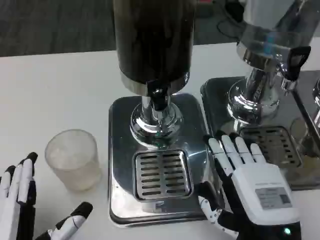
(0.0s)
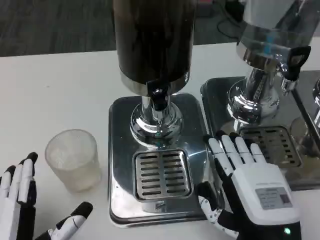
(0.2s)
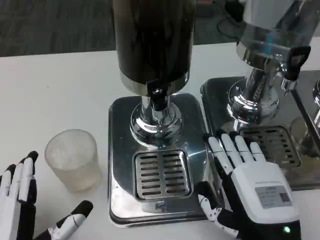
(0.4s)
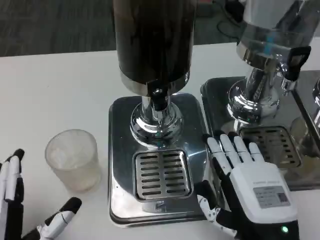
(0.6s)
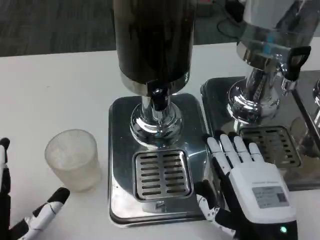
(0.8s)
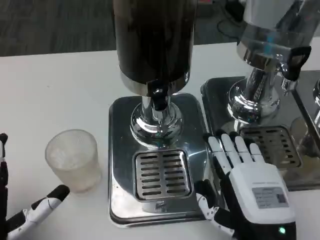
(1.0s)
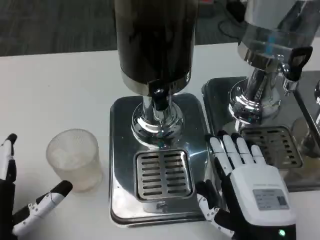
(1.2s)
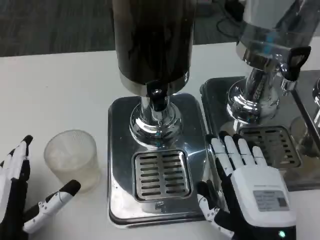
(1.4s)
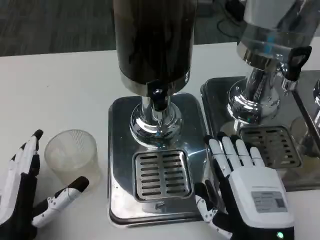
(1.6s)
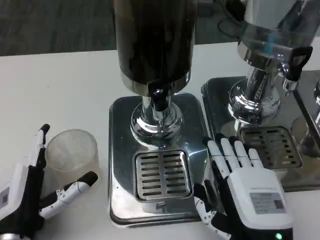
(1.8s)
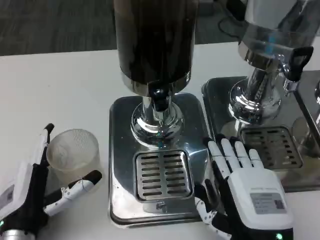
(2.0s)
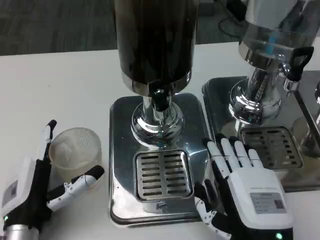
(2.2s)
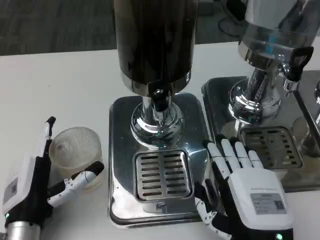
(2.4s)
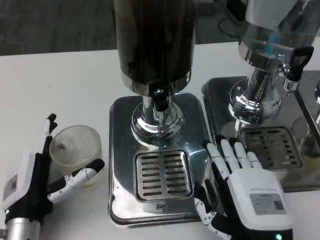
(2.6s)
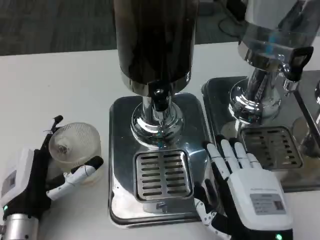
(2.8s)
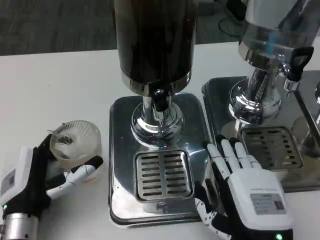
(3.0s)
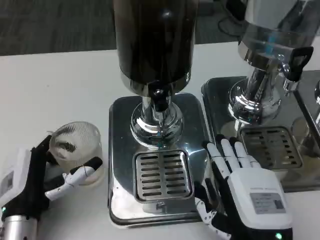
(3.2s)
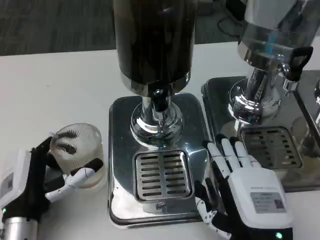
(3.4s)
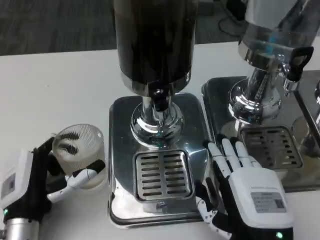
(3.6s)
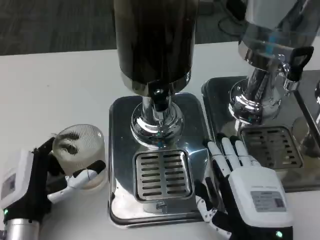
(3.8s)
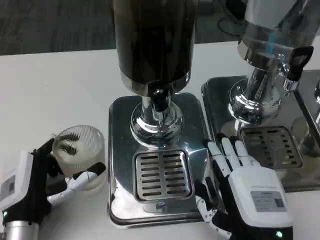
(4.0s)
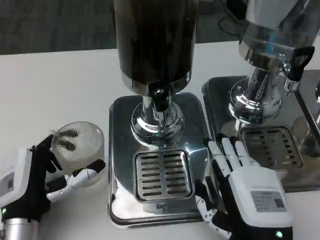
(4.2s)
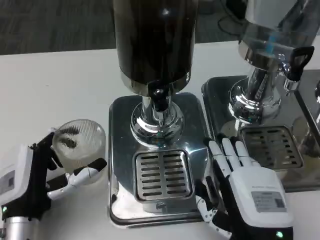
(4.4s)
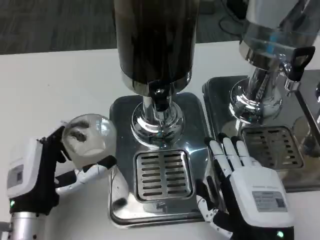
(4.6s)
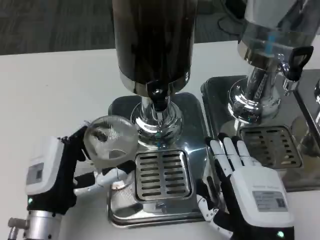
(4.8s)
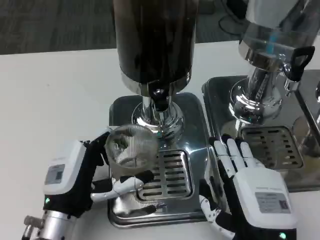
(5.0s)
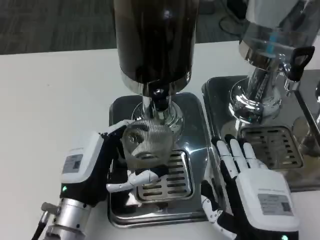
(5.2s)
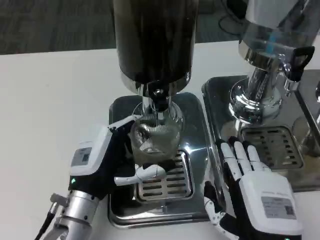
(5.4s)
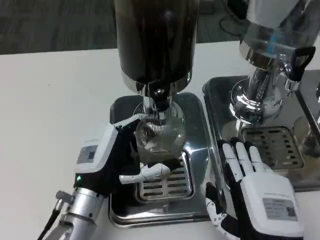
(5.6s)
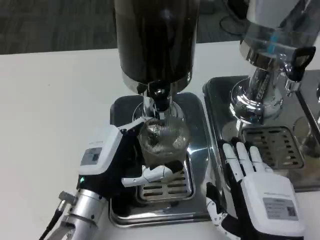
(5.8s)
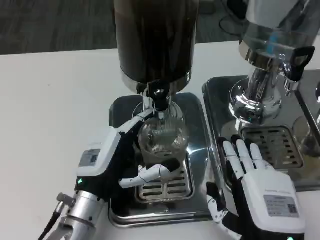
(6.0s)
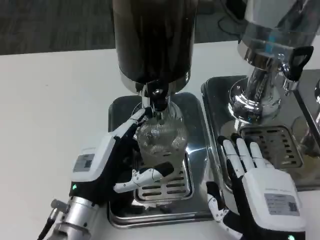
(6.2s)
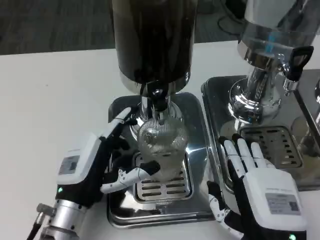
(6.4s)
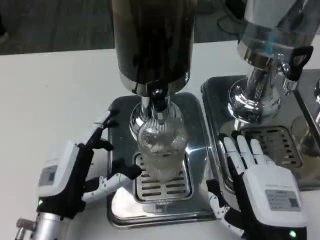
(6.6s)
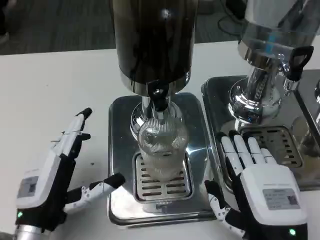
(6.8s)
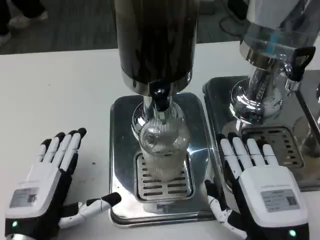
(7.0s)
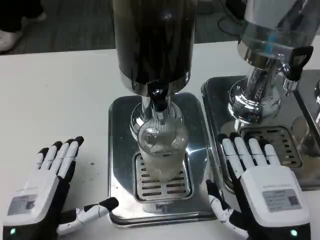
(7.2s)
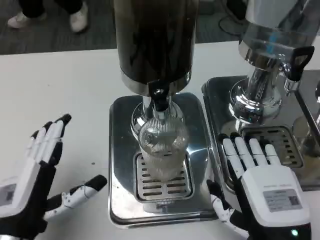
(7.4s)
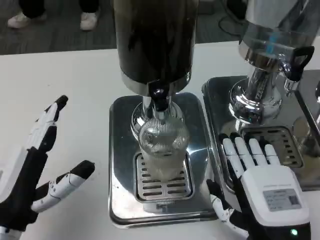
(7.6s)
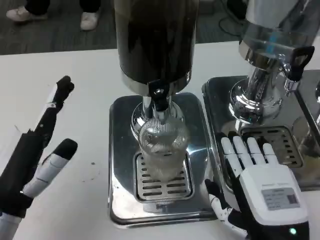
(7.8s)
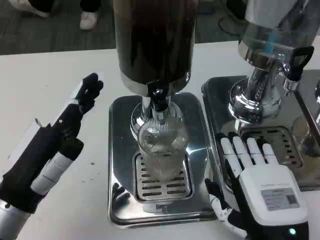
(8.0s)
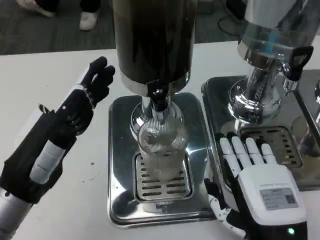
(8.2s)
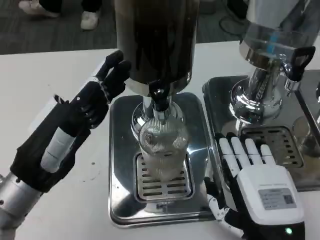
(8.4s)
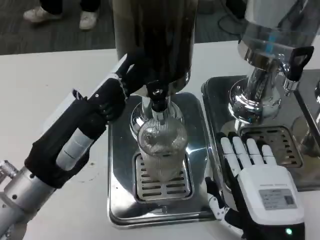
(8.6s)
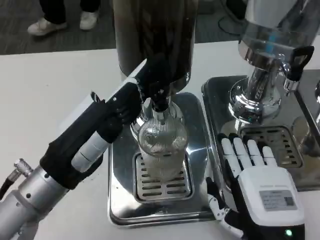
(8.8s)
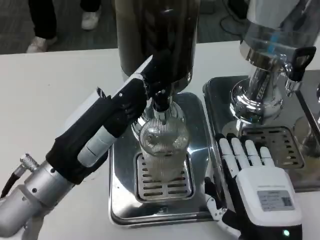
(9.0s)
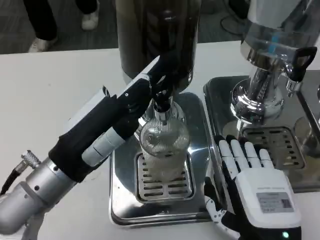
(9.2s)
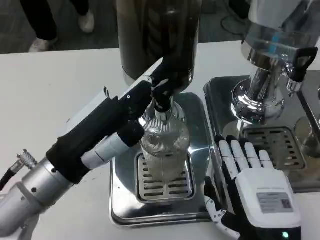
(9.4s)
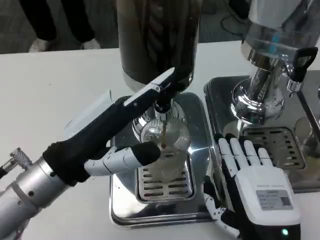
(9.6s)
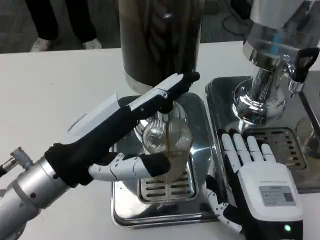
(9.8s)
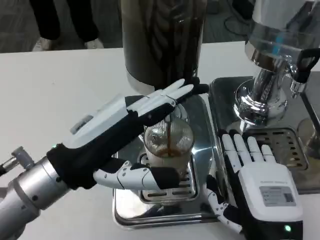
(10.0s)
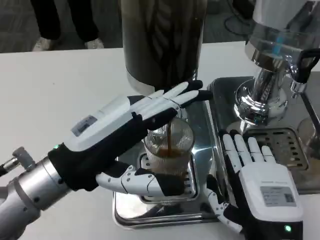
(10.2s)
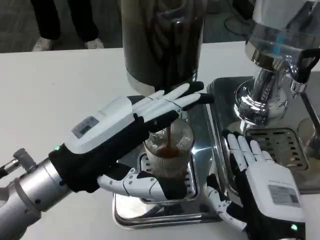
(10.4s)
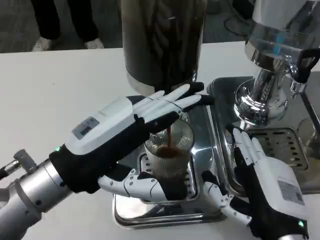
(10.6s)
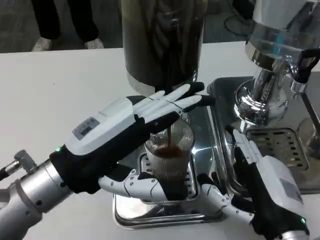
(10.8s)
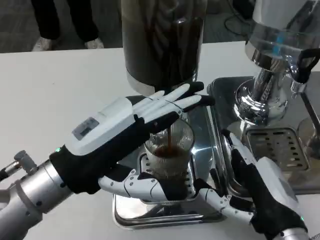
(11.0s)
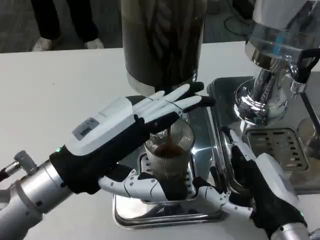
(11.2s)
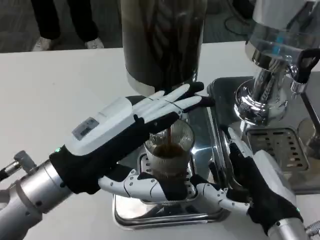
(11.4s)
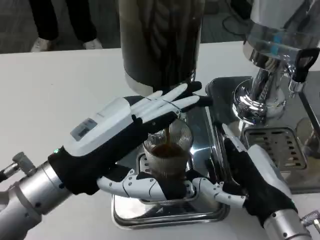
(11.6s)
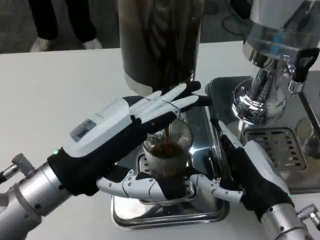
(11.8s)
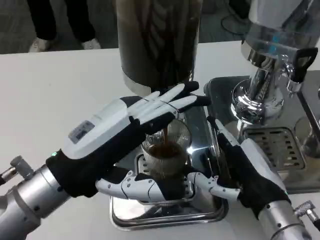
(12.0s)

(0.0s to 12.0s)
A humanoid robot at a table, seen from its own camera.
Task of the whole recording: Grasp the cup under the faucet to collect the drink, then remove the cup.
0.0s - 1.6s: The left hand travels forward by about 5 cm.
1.6s - 4.4s: The hands move only a little.
4.4s - 6.0s: The left hand is displaced to the right by about 5 cm.
6.0s - 7.6s: The left hand goes roughly 10 cm to the left and backward.
7.6s - 9.0s: The left hand is displaced forward and upward by roughly 10 cm.
10.4s - 12.0s: The right hand moves forward, some 5 cm.

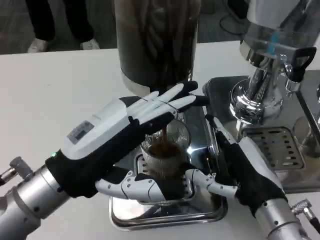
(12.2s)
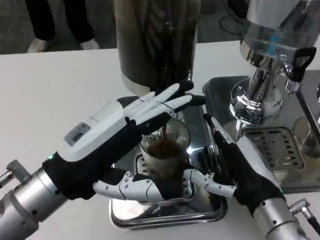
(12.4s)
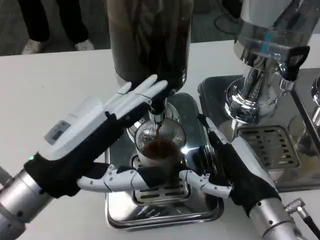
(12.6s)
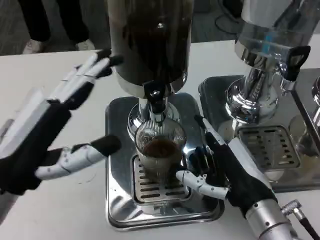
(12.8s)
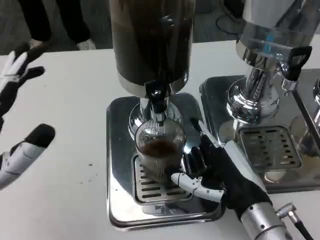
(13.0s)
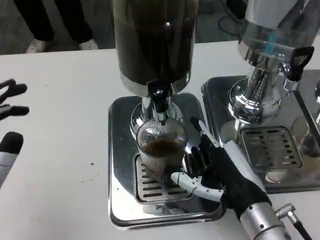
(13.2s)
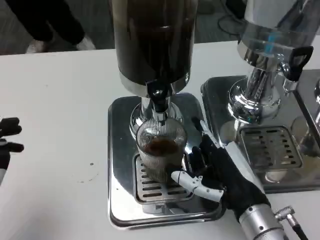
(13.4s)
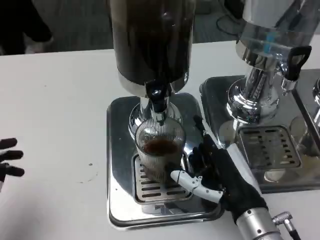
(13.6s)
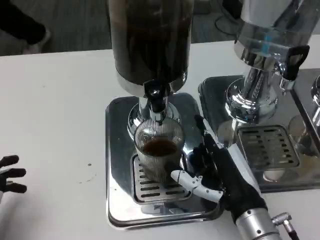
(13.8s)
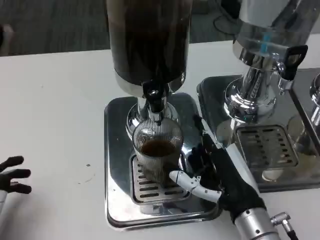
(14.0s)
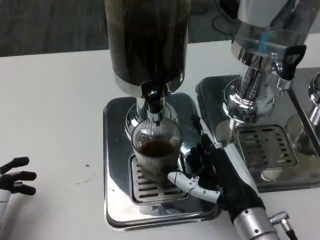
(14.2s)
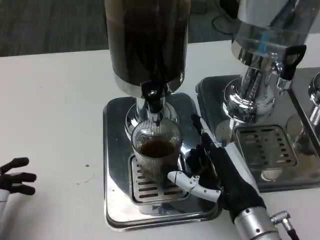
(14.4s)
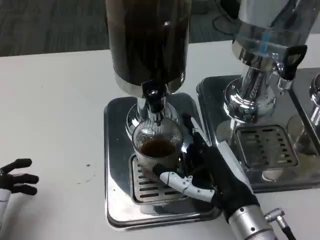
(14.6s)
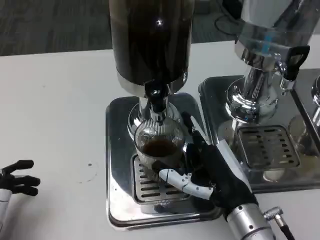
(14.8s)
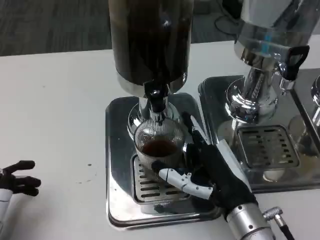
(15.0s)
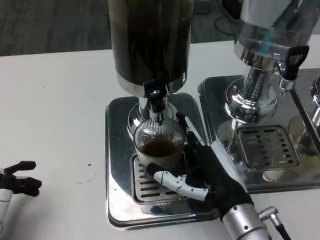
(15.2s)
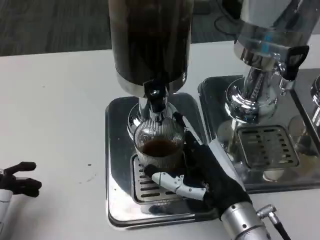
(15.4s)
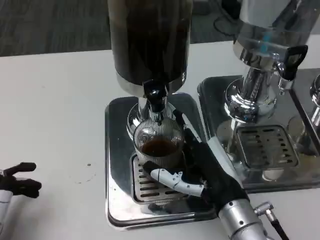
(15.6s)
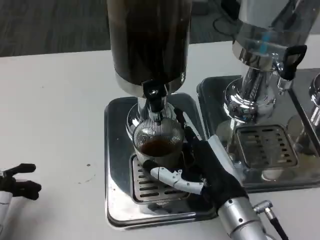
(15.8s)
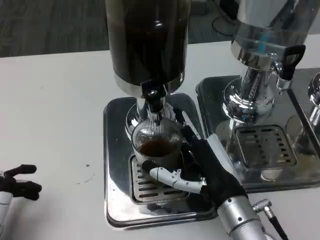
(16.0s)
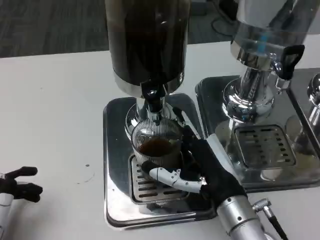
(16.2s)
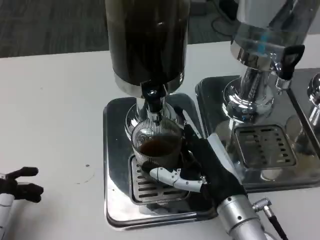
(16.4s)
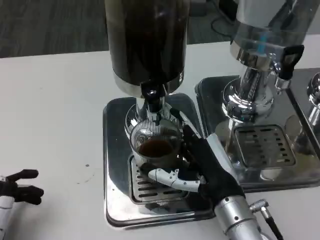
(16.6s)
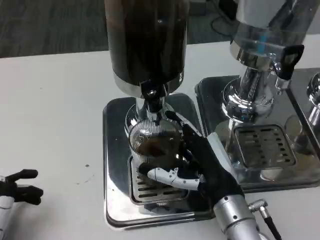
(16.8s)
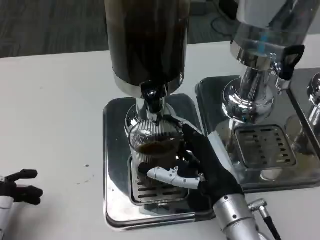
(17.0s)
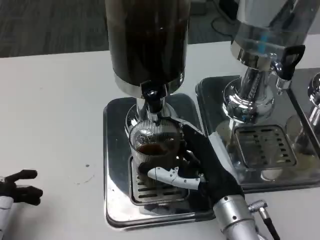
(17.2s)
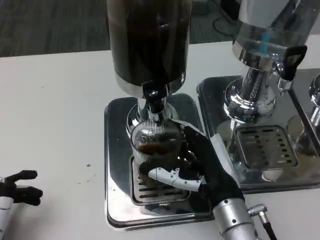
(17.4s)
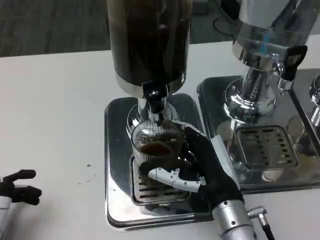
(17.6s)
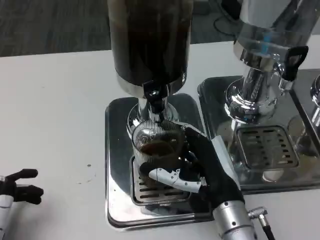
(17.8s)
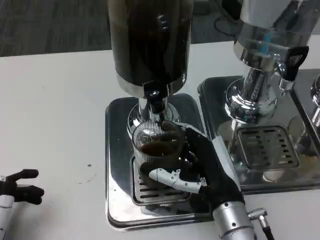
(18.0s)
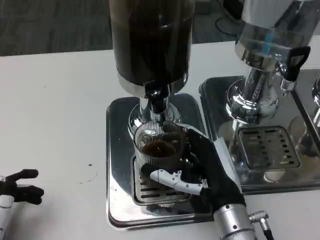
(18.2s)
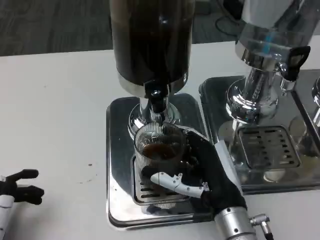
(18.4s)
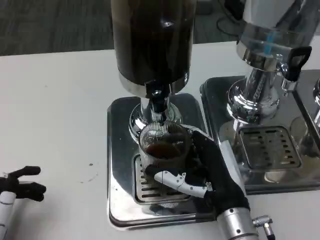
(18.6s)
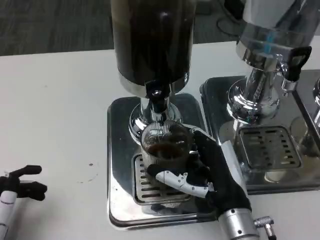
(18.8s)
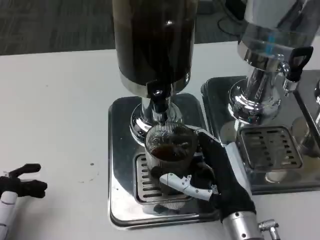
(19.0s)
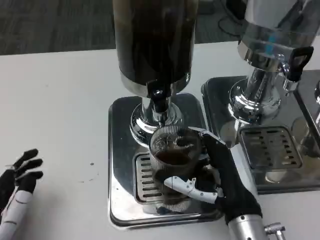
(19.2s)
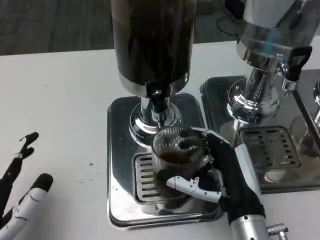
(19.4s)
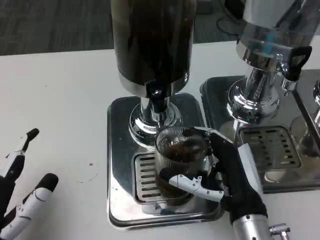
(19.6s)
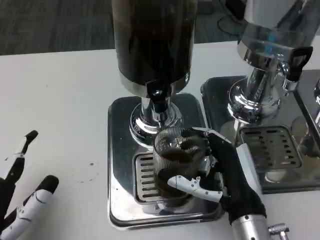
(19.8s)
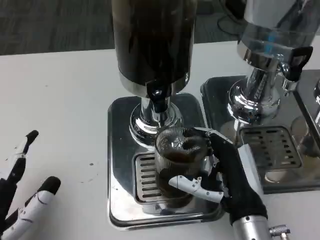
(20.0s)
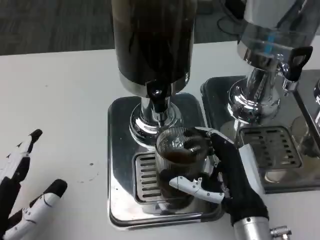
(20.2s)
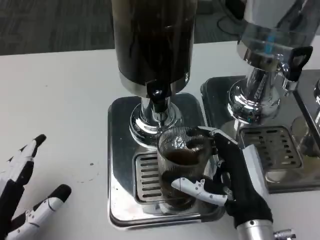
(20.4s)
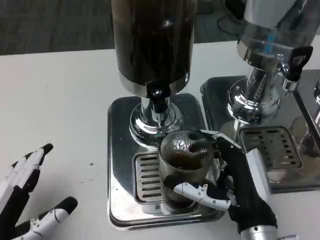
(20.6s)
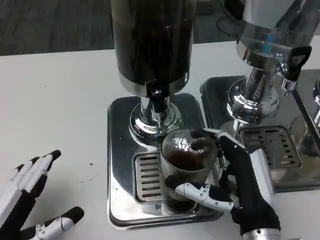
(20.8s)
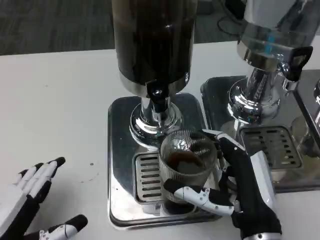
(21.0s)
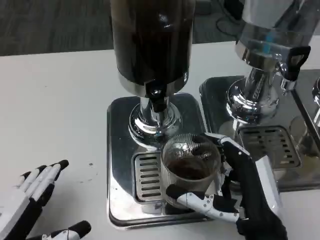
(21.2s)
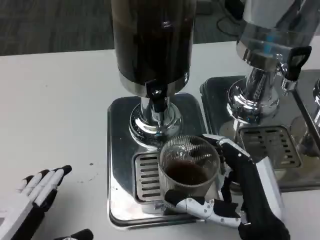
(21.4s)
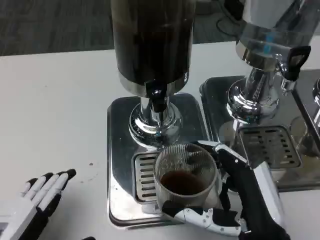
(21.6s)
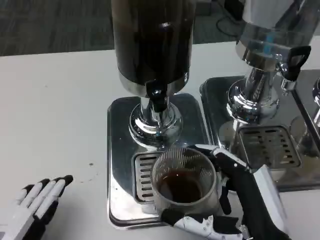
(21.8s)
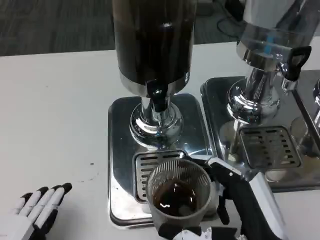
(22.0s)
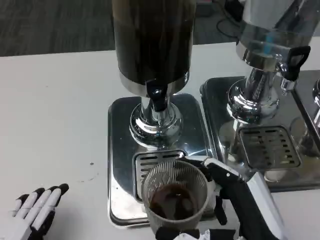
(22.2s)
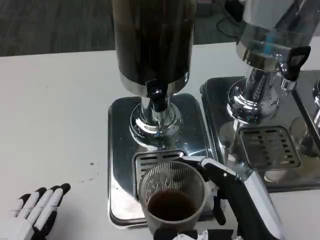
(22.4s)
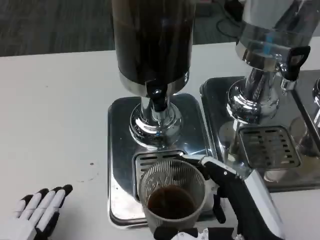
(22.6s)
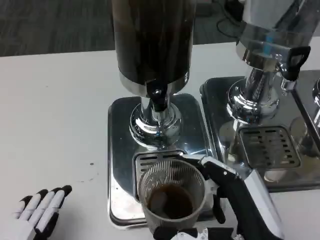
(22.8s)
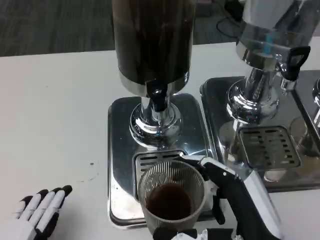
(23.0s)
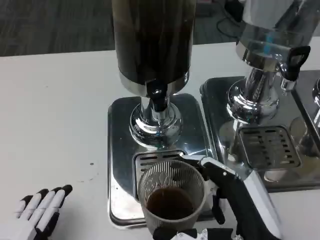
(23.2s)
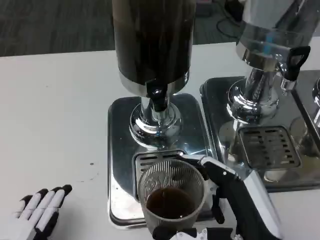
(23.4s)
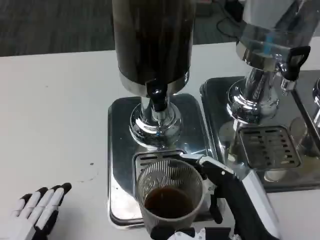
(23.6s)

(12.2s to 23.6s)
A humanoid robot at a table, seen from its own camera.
Task of the whole recording: Grasp the cup under the faucet to collect the drink, then remove the cup.
12.2s - 13.6s: The left hand travels downward, backward and to the left by approximately 15 cm.
16.4s - 17.8s: The hands make only small movements.
20.8s - 22.2s: The left hand shifts by some 5 cm; the right hand heads backward, covering roughly 5 cm.
22.2s - 23.6s: Both hands stay about where they are.
